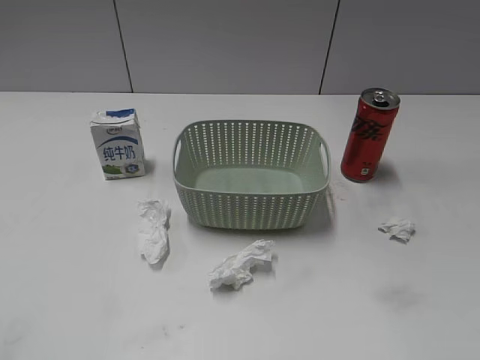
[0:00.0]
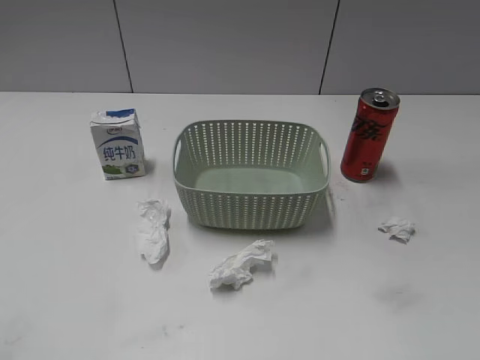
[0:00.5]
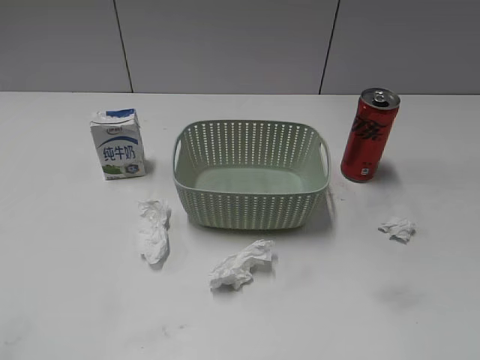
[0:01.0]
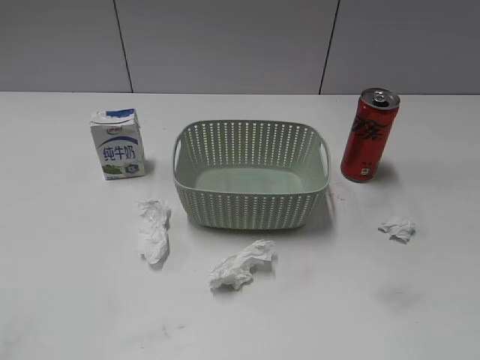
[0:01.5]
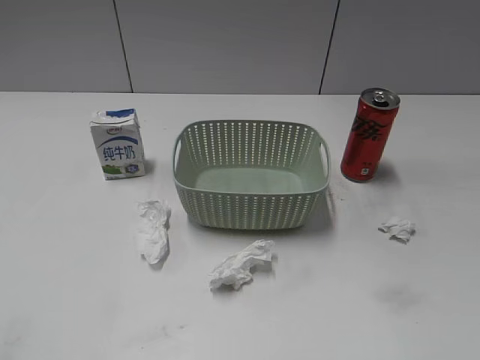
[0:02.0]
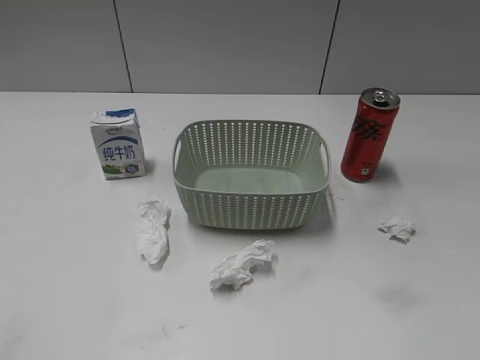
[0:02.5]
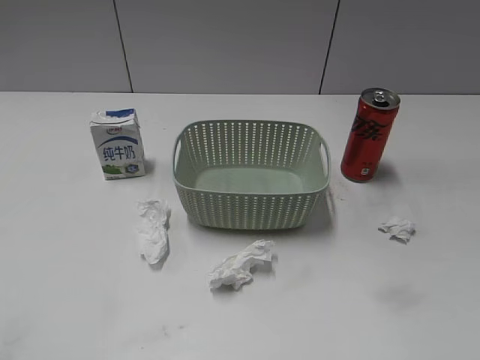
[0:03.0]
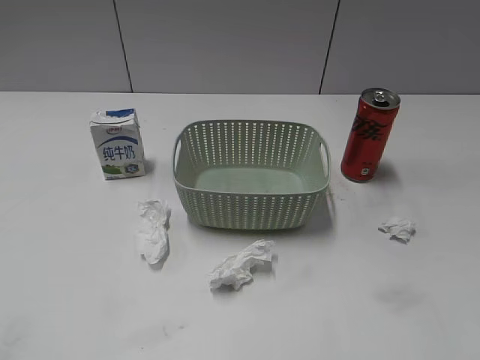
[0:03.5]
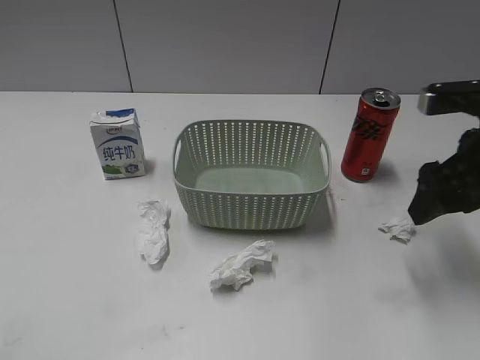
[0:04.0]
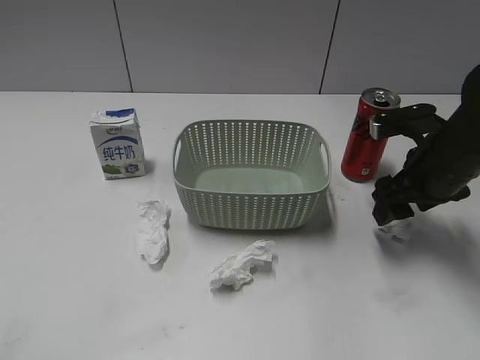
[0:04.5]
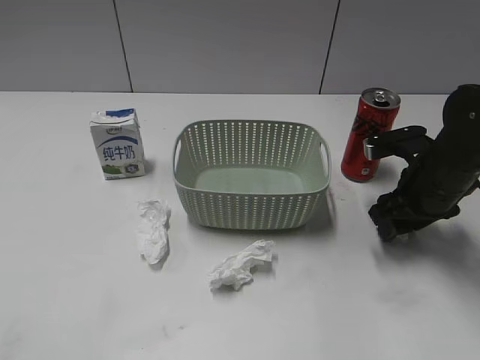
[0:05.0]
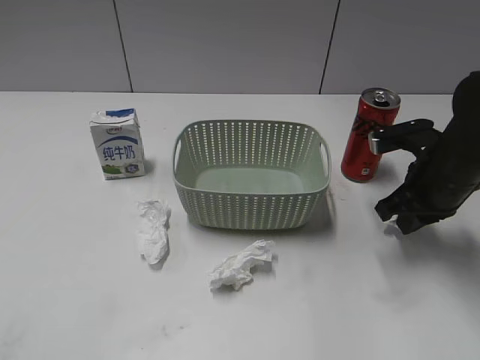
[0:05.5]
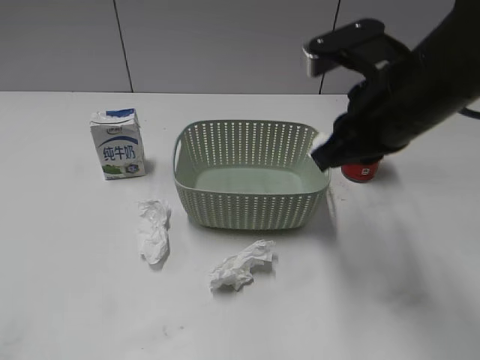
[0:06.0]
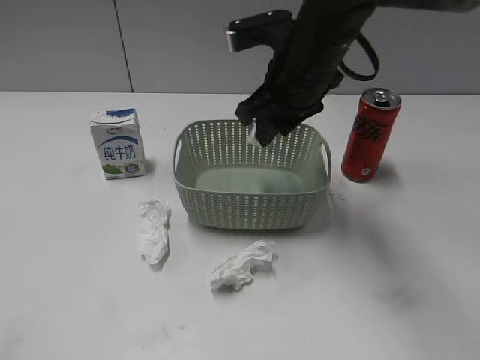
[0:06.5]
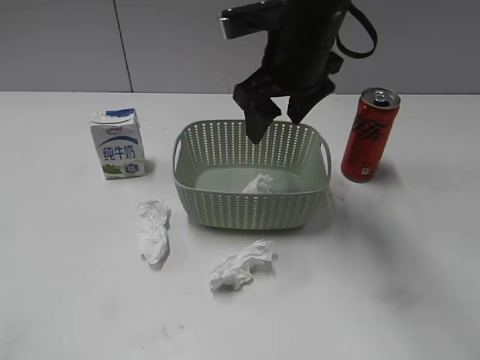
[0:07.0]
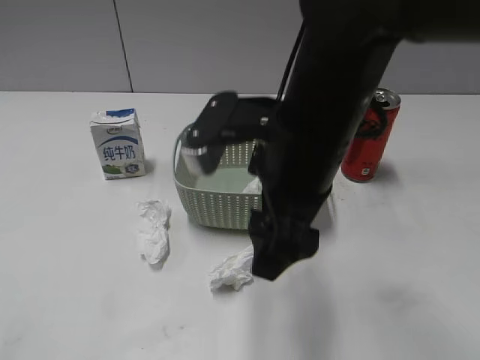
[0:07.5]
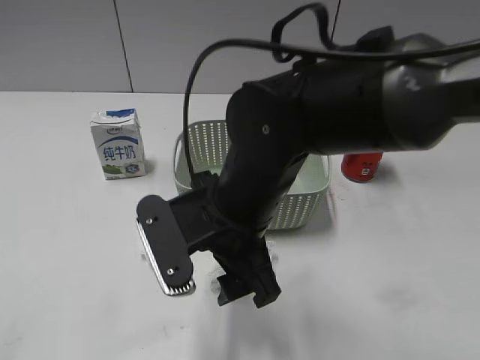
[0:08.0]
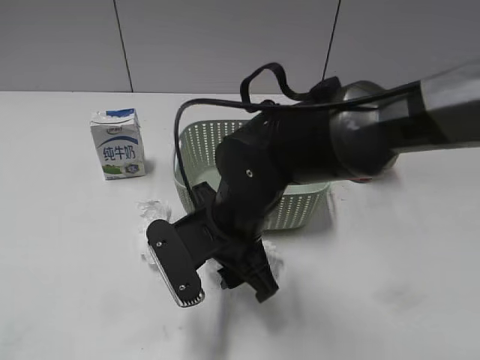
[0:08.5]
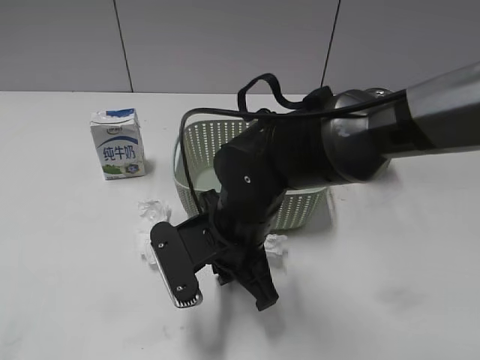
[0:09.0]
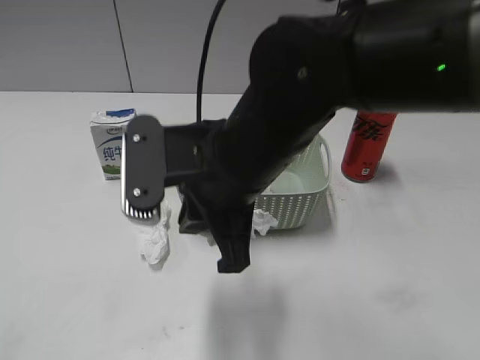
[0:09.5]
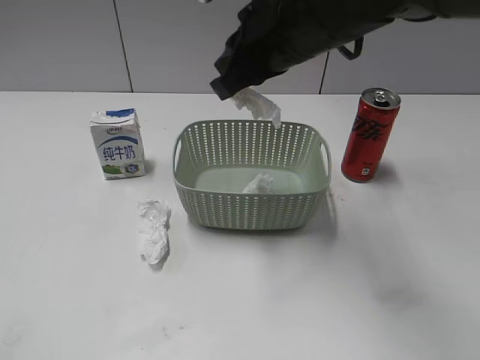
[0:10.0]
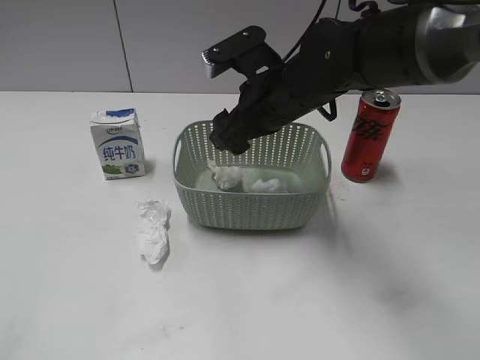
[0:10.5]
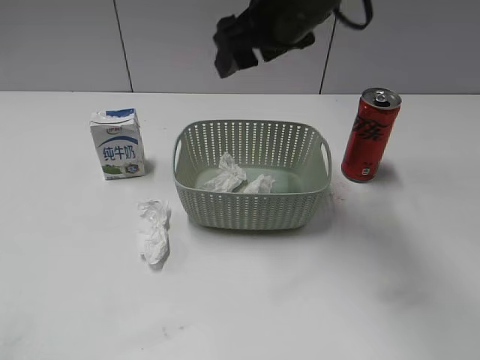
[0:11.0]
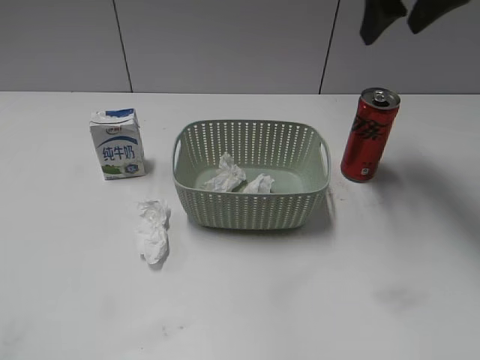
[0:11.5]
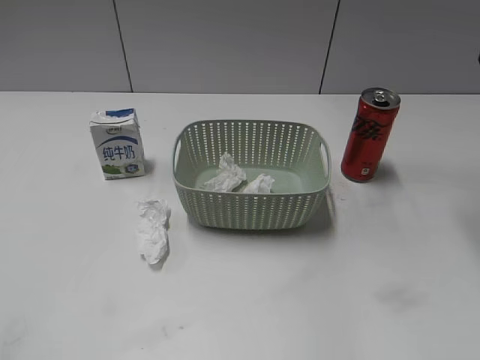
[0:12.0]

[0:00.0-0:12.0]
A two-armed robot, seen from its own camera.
Step, 4.0 to 5.5 s: Grasp the waste paper with right gripper.
Step, 6.0 to 6.5 s: Place the waste paper in the basket with right gripper.
Step, 7.0 to 9.0 s: Grasp the waste paper with right gripper.
Step, 9.5 to 10.5 s: Place the waste paper in the basket with right gripper.
2.0 to 4.0 s: The right gripper travels forward by about 25 cm.
4.0 to 6.0 s: The right gripper is displaced to the left by approximately 10 cm, moves some 10 cm downward and comes back, and closes.
6.0 to 8.0 s: The right gripper heads to the left and downward, covering roughly 15 cm, travels forward and back again, some 10 cm each way, and opens.
8.0 to 10.0 s: The right gripper travels upward and forward by about 15 cm, and closes up.
10.0 to 12.0 s: The right gripper shifts approximately 25 cm to the right, and opens up.

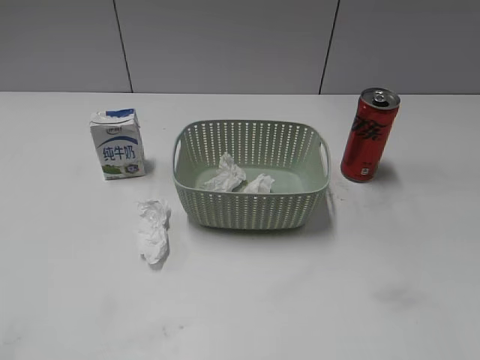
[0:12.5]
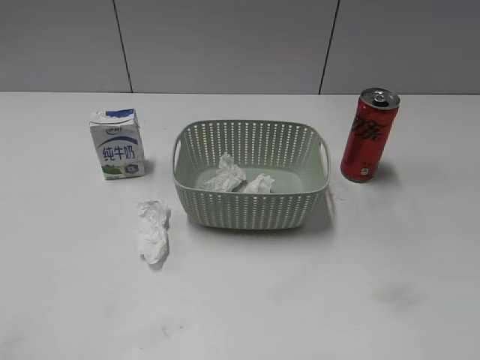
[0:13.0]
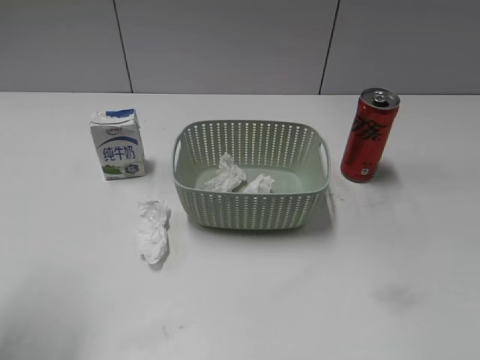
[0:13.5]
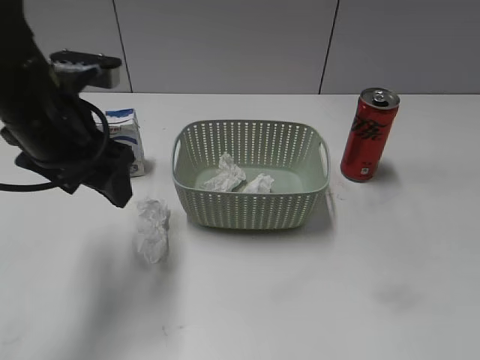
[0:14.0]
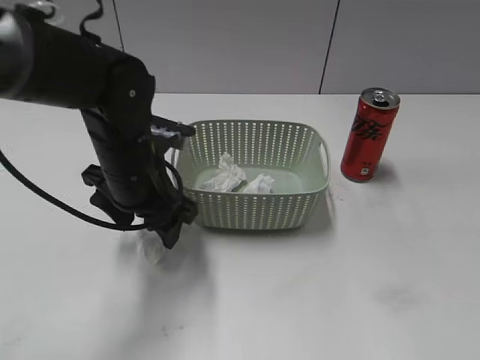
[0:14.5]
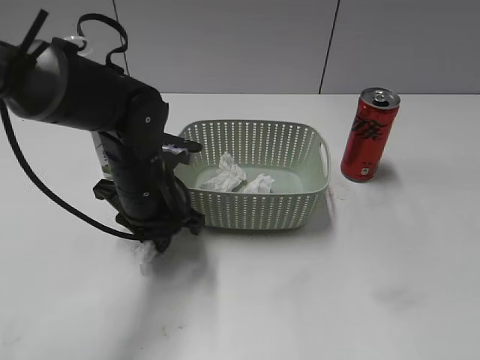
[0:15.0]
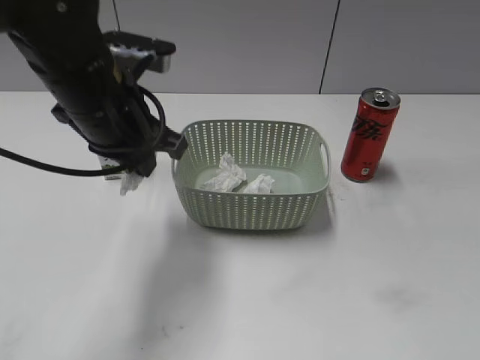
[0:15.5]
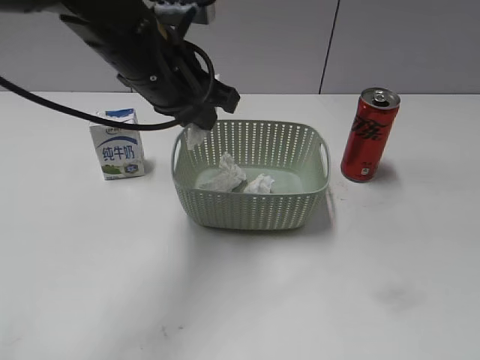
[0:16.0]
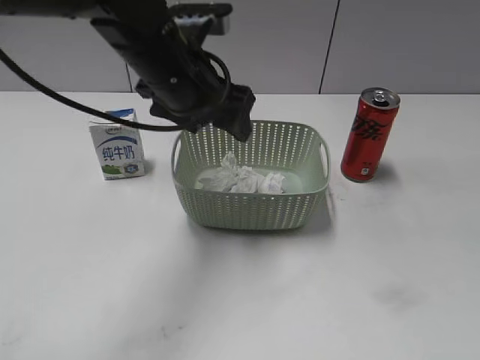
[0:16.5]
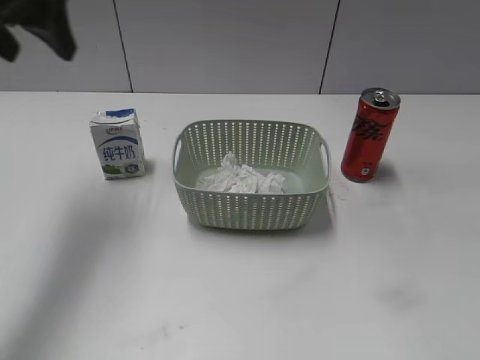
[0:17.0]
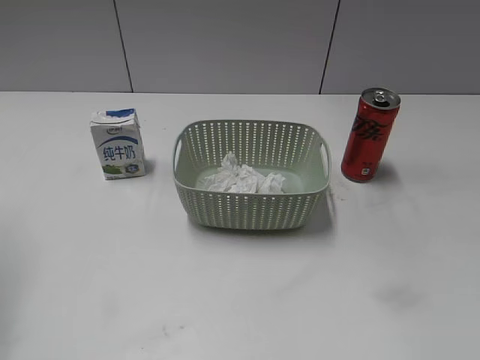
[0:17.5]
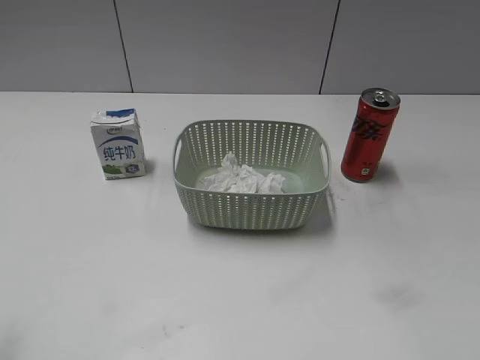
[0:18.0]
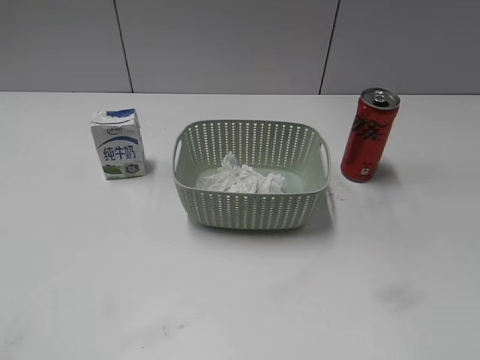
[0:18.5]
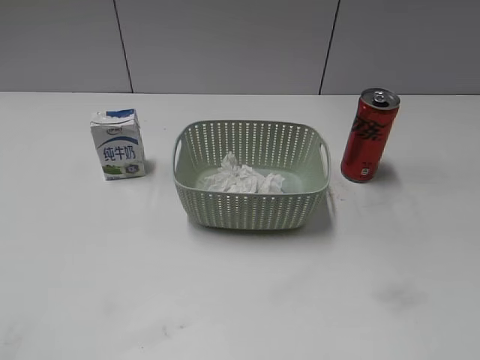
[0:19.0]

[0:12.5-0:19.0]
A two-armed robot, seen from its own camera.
Step, 12.5 to 15.0 s: Grasp the waste paper with left gripper.
Step, 15.5 to 16.5 s: Place the waste paper in the basket with left gripper.
12.5 to 14.5 s: The left gripper heads forward, to the right and downward, covering approximately 35 cm, while the right gripper moves backward, some 15 cm.
14.5 to 17.0 s: The left gripper heads upward and to the left, covering about 20 cm, and closes, then reopens.
17.0 to 19.0 s: The left gripper moves backward, about 35 cm.

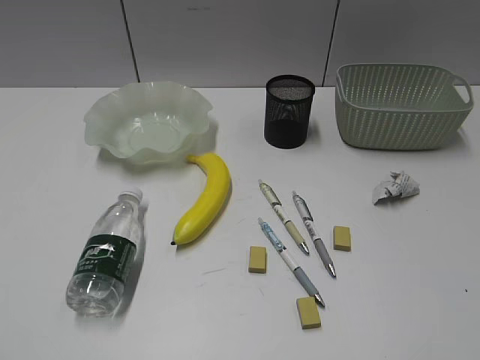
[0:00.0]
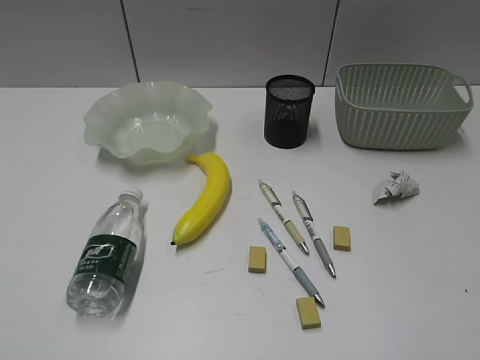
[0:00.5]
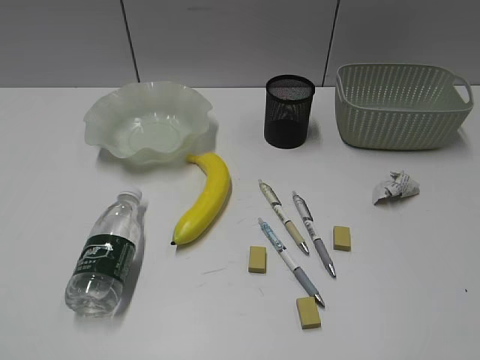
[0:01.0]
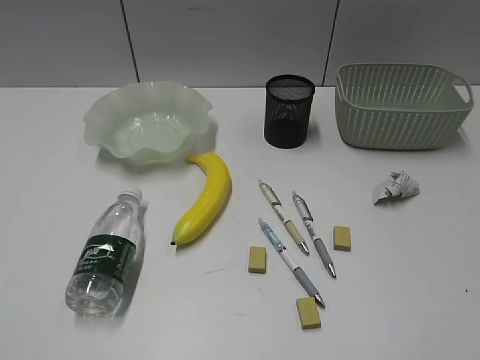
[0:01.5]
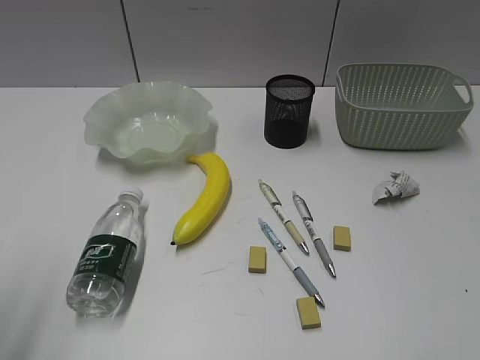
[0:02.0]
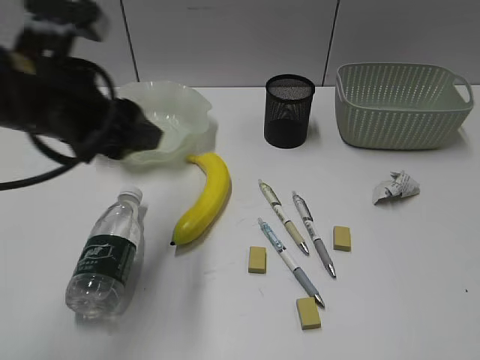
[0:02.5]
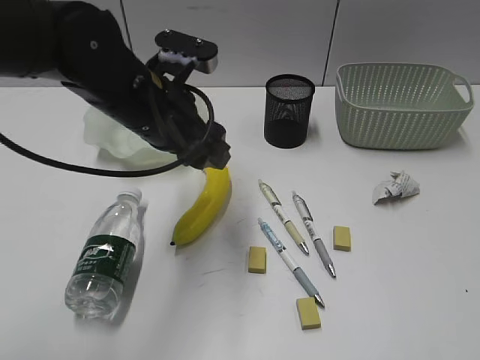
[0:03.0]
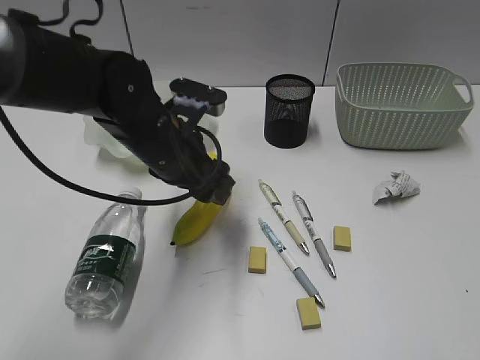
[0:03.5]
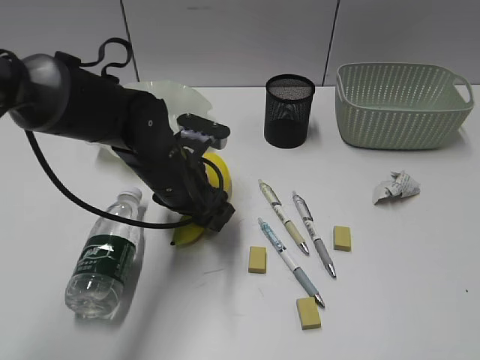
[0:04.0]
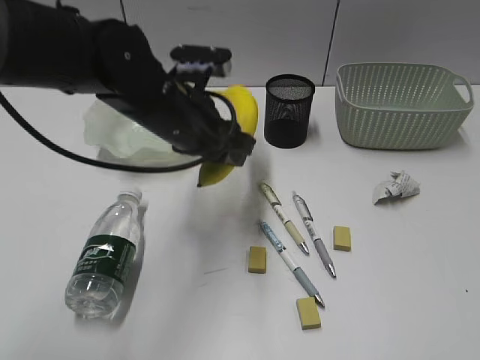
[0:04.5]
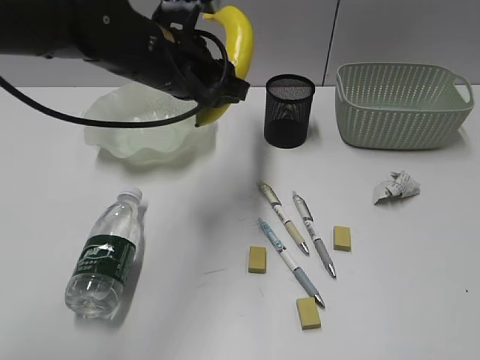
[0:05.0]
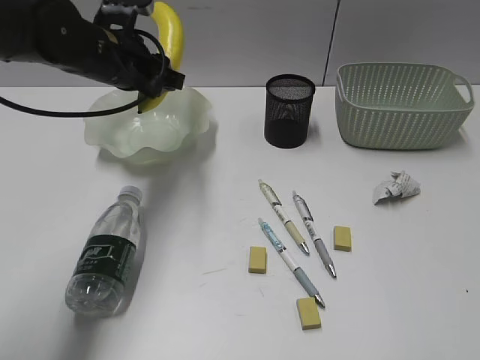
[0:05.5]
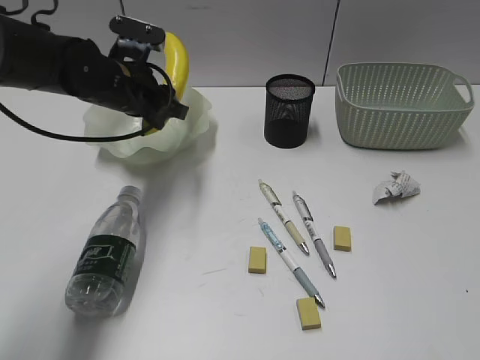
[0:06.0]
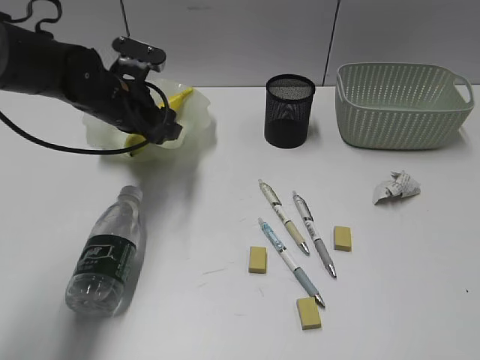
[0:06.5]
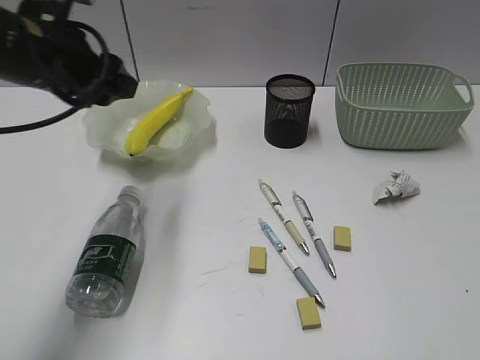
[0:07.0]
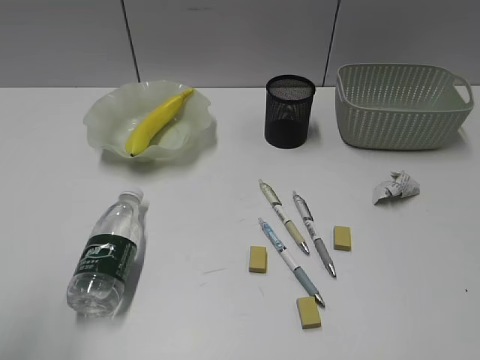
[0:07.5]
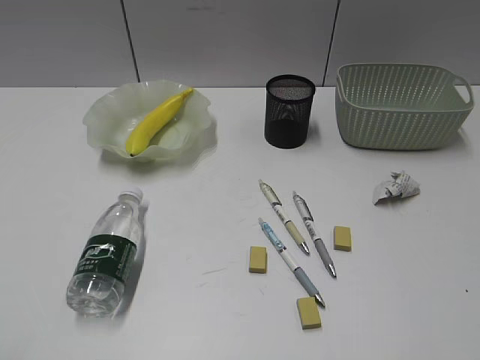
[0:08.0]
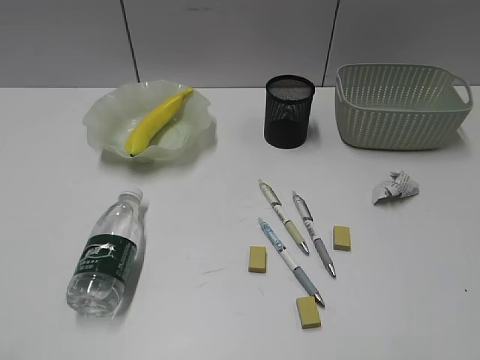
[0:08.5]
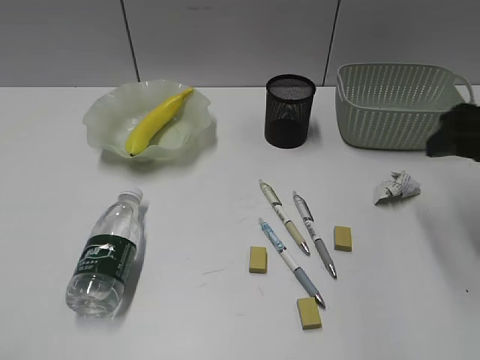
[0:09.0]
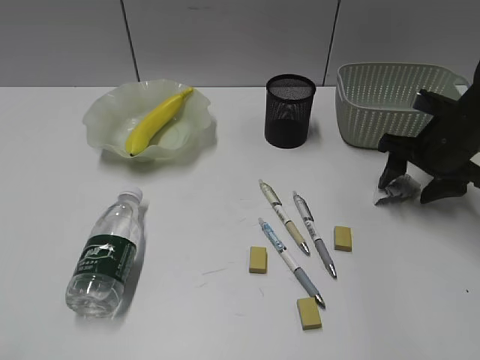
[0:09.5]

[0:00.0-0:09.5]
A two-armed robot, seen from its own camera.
Step, 2.0 to 4.0 s: Grasp the banana with left gripper.
Step, 4.5 to 6.5 s: Place the banana in the plate with left gripper.
2.0 to 4.0 s: The left gripper moves forward, to the right and downward, roughly 40 cm, and opens up.
4.0 to 5.5 s: The left gripper travels upward, forward and to the left by roughly 15 cm.
5.5 to 7.5 s: The left gripper is displaced backward and to the left by approximately 35 cm.
7.5 to 9.5 s: The left gripper shifts approximately 10 cm backward and to the left. The right gripper moves forward and downward, about 40 cm, and opens.
